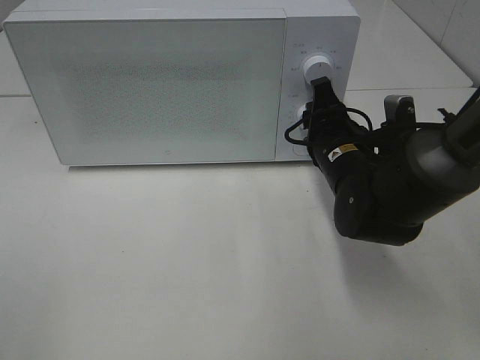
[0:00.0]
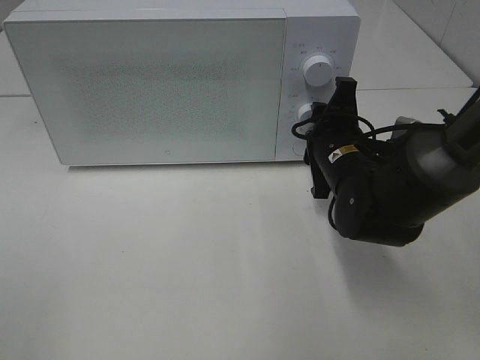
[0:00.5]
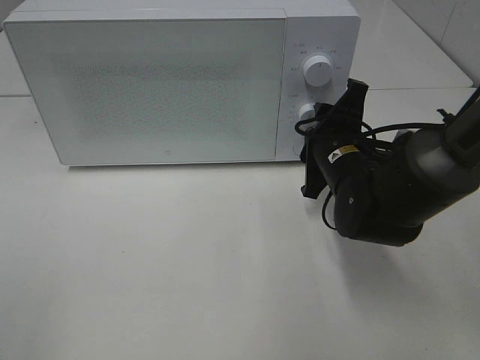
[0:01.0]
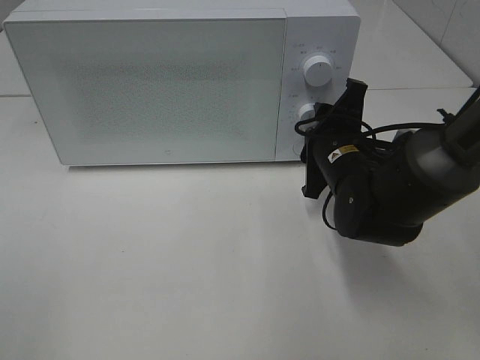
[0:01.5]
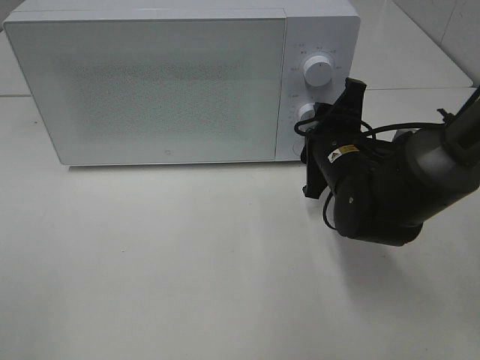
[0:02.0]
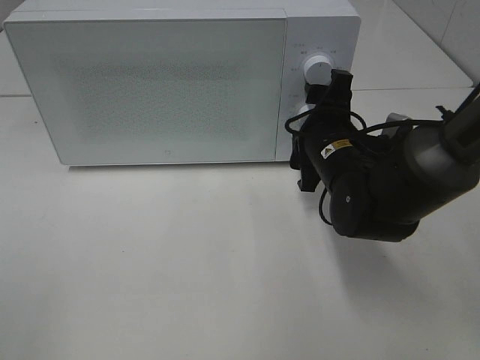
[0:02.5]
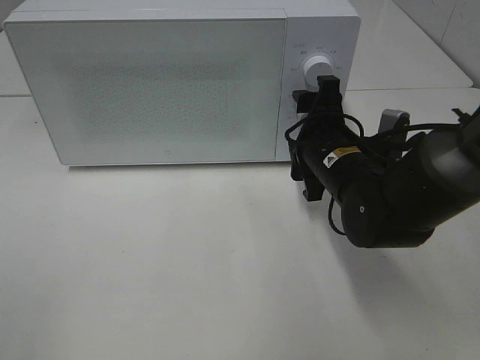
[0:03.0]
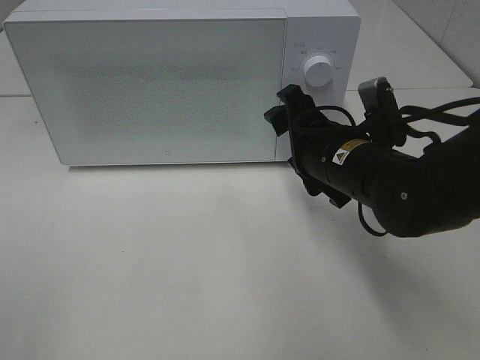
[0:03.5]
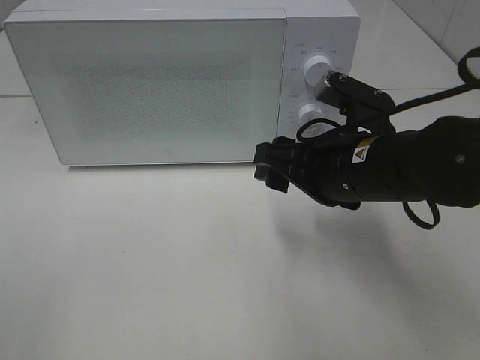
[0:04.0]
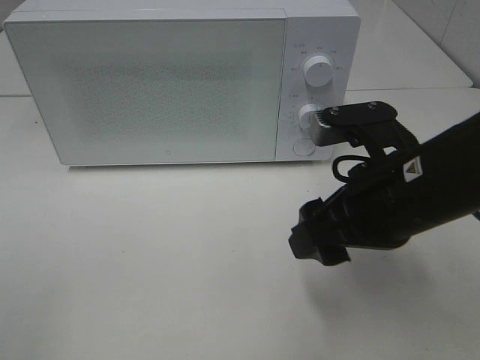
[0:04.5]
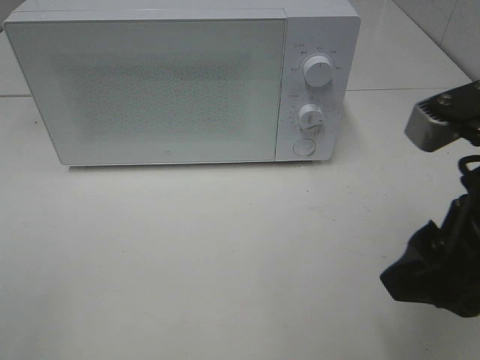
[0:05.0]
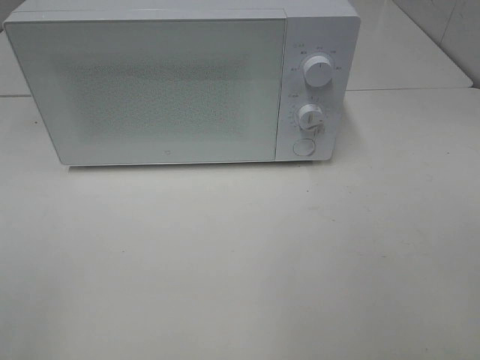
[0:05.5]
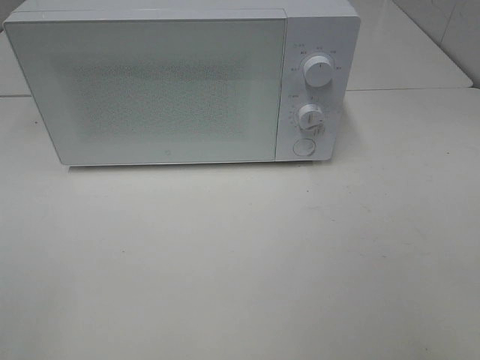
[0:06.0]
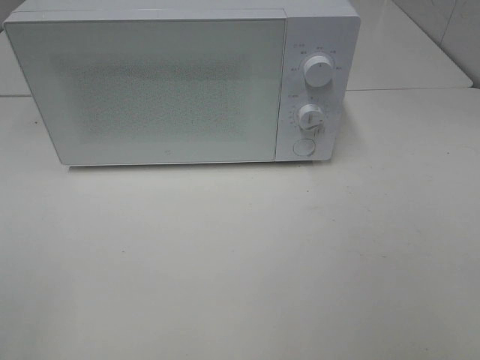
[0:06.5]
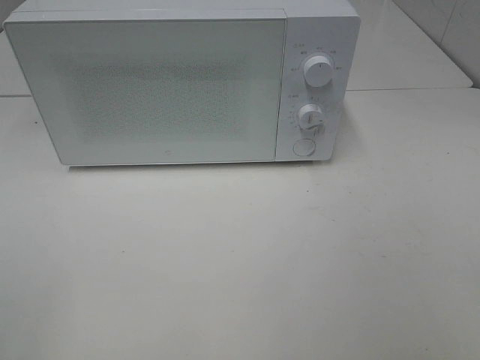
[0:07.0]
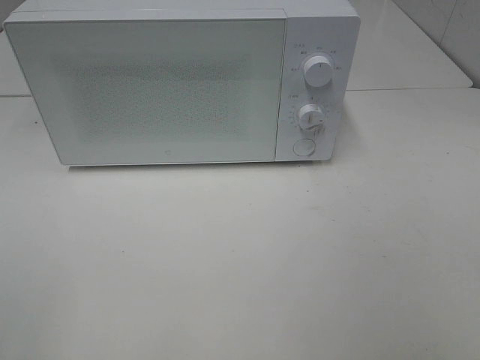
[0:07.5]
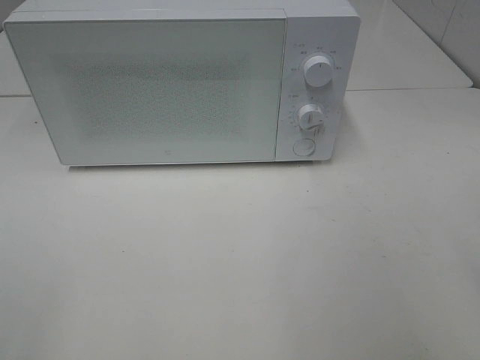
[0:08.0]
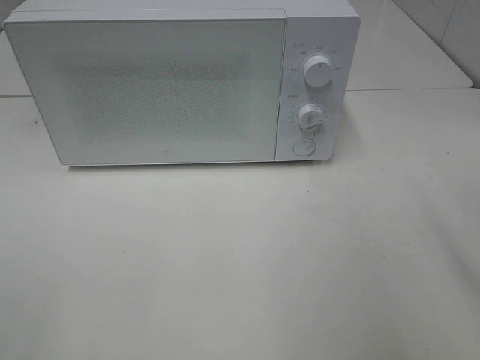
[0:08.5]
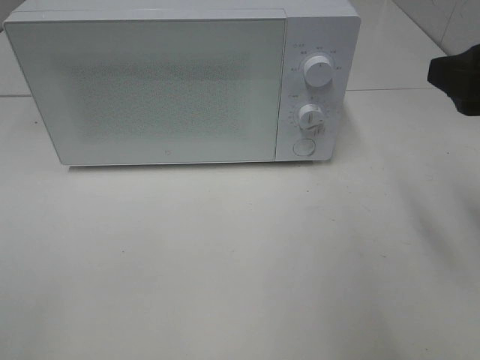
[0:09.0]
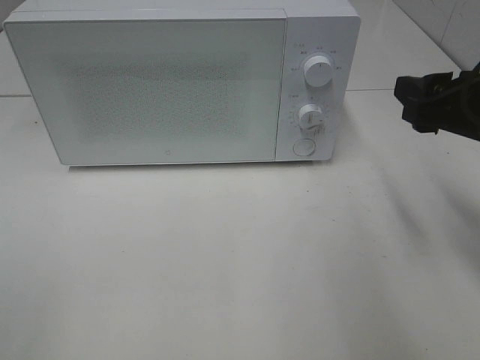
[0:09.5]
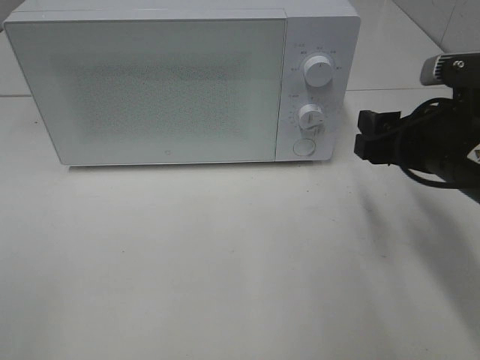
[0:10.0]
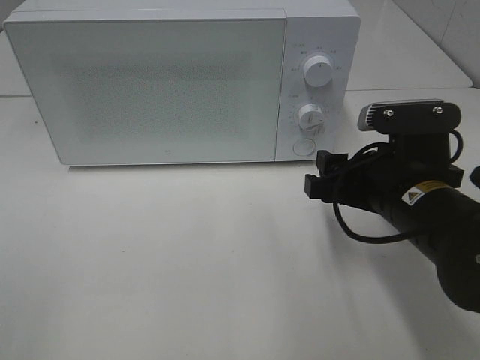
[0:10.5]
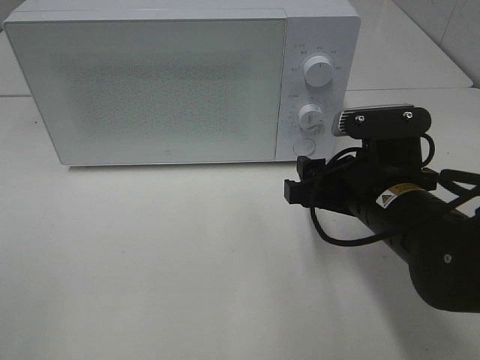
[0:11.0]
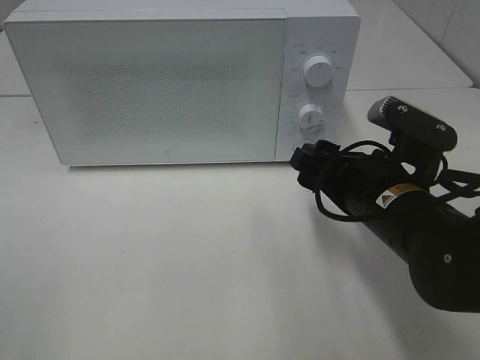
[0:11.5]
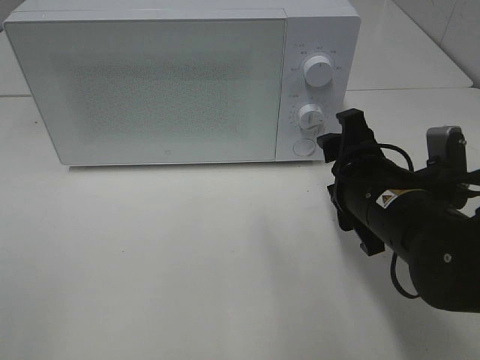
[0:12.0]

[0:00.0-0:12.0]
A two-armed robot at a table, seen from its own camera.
Task of the whole recording: Heat Sandwich.
Step, 0:00.0 to 0:03.0: Right hand: twist timer button.
0:02.0 to 0:04.0: The right gripper travels backward and upward by roughly 10 cm.
0:04.0 to 0:06.0: The right gripper travels backward, to the right and upward by some 30 cm.
0:08.0 to 0:10.0: The right gripper goes approximately 20 cm forward, downward and to the left.
0:10.0 to 0:12.0: The right gripper moves to the left, some 5 cm.

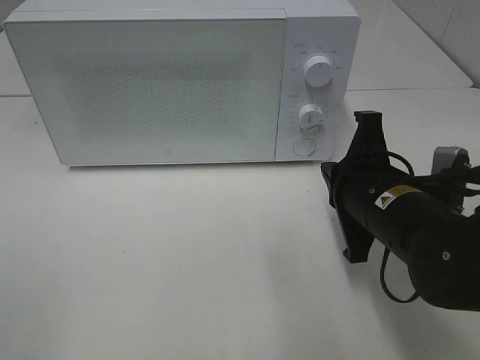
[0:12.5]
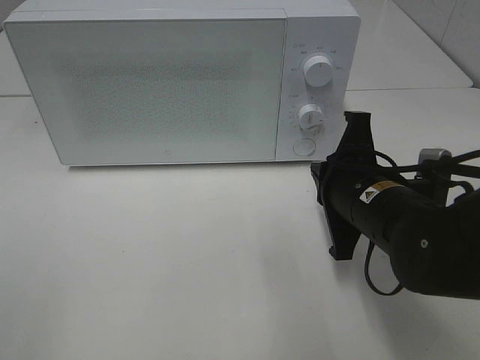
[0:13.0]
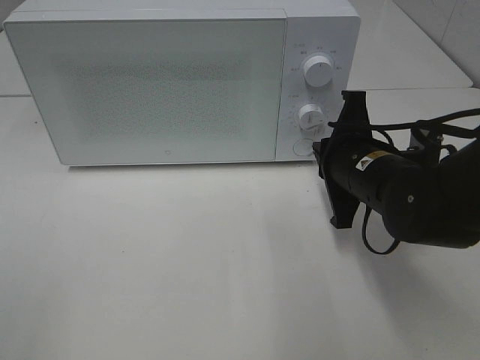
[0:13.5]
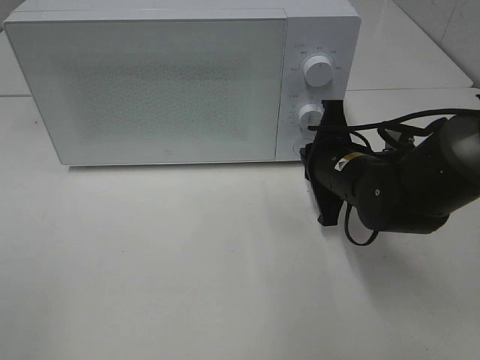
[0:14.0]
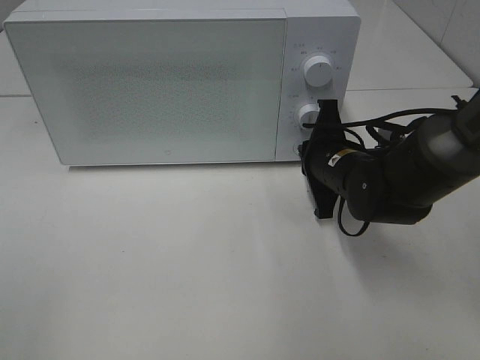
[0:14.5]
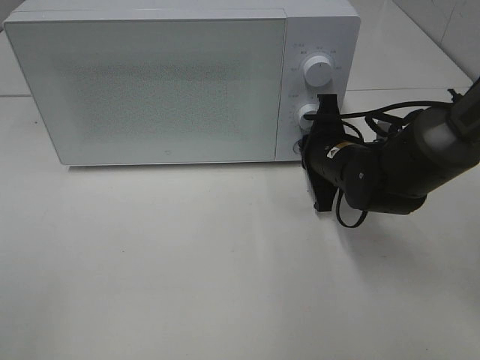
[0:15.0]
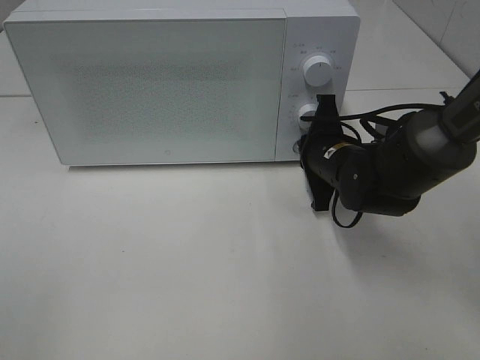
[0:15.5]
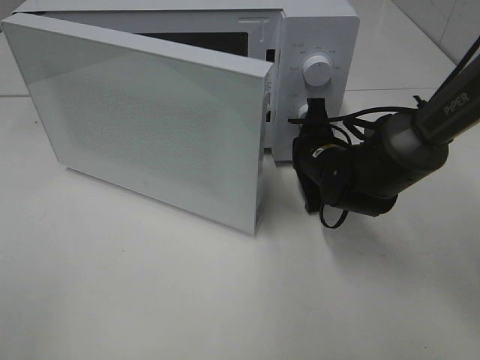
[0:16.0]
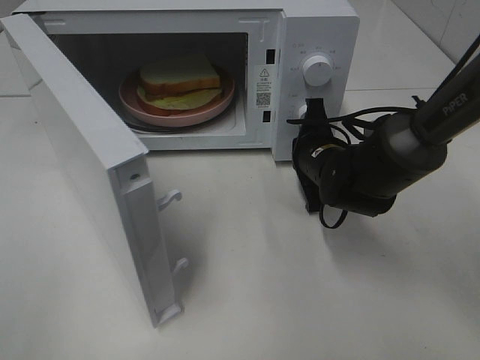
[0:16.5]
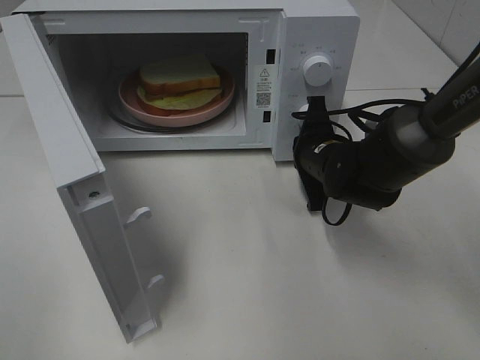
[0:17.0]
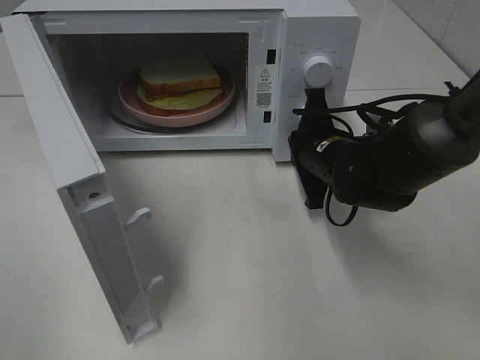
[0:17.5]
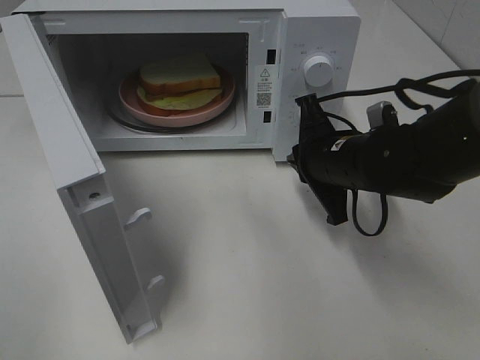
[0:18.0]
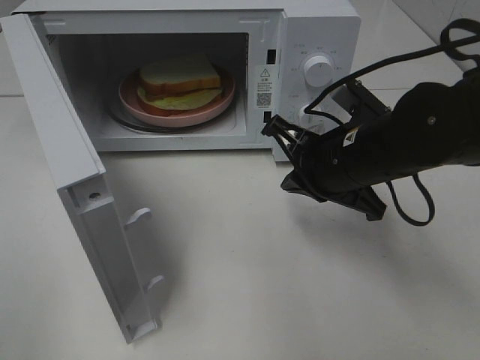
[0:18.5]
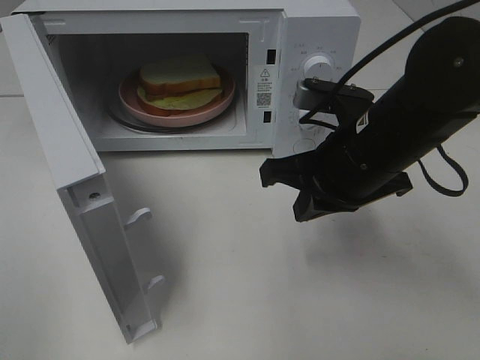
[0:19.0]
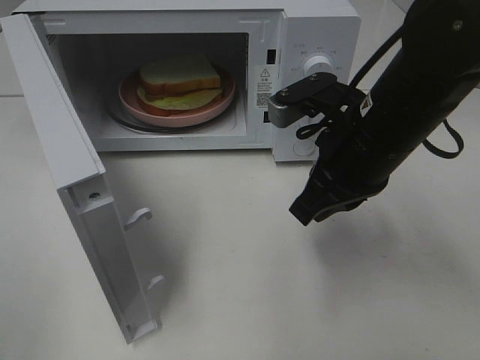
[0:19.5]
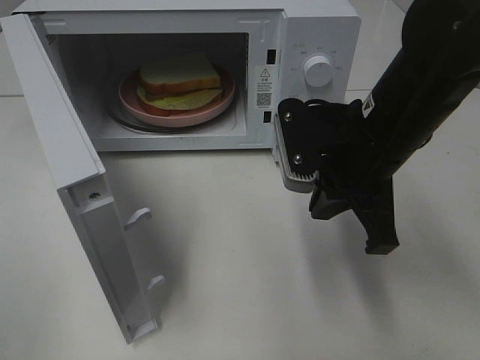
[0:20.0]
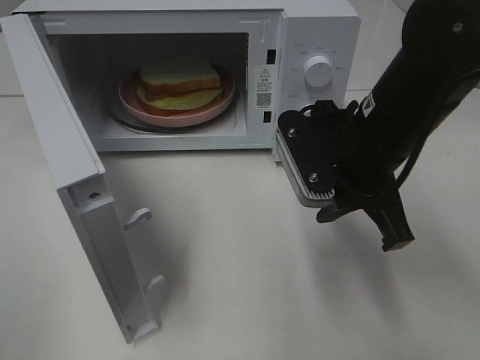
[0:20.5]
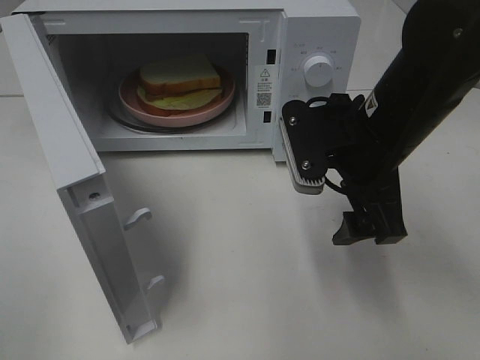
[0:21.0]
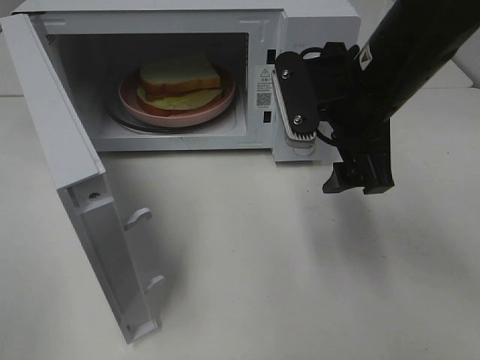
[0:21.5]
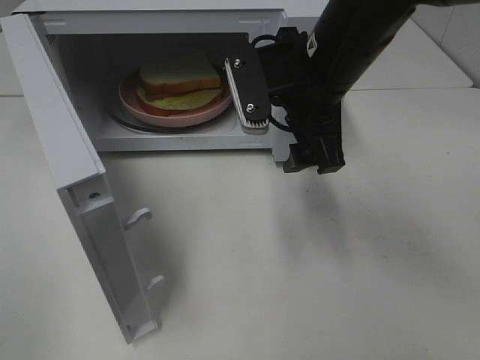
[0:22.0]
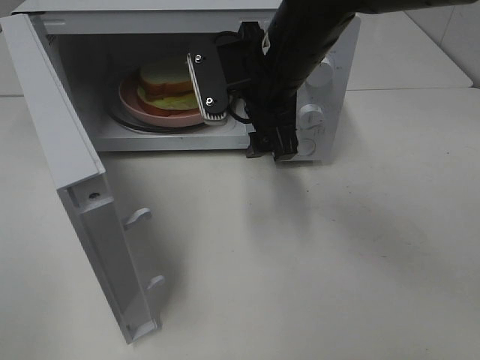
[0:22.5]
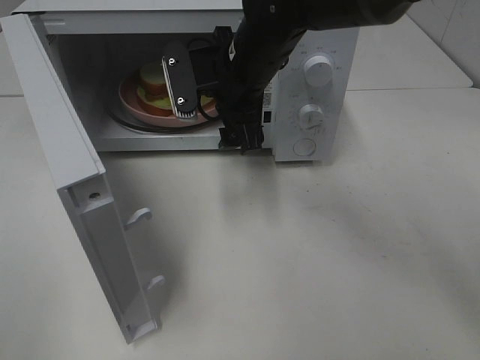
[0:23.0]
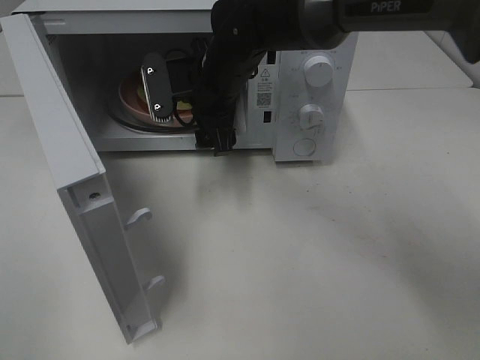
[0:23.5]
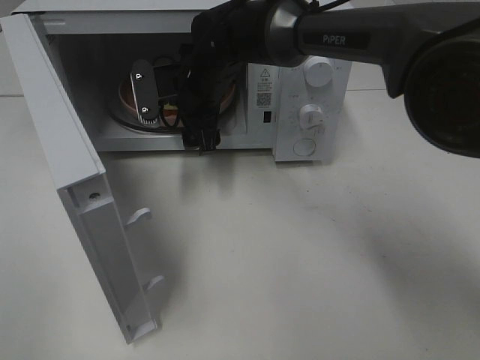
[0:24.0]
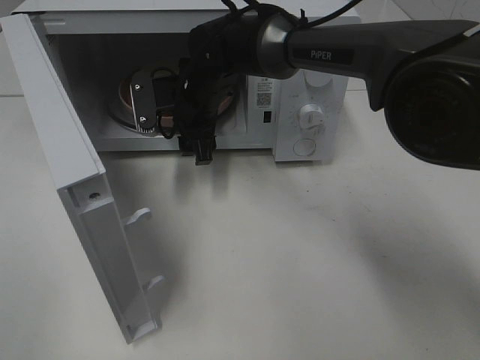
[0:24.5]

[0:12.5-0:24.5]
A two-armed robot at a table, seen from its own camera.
Task of the whole recording: Heat Sandwich.
Step, 0:12.5 to 0:17.5: Right hand: press the switch.
0:12.5 to 0:14.5: The right gripper is displaced forward by approximately 10 cm.
0:16.5 to 0:18.5: The right gripper shifts roughly 10 cm backward and upward.
0:18.5 to 0:20.5: The right gripper ends up roughly 5 cm from where it was.
0:20.5 to 0:22.5: The right gripper is displaced to the left and forward by some 10 cm, and opens.
0:22.5 to 0:24.5: The right gripper goes approximately 15 cm forward, downward and to the left.

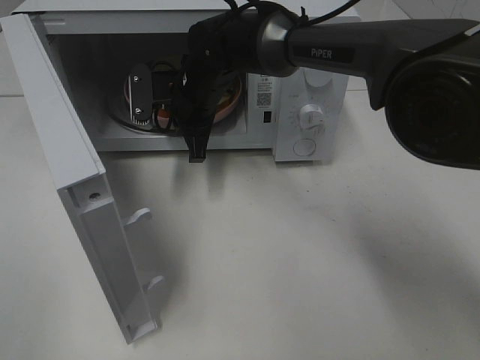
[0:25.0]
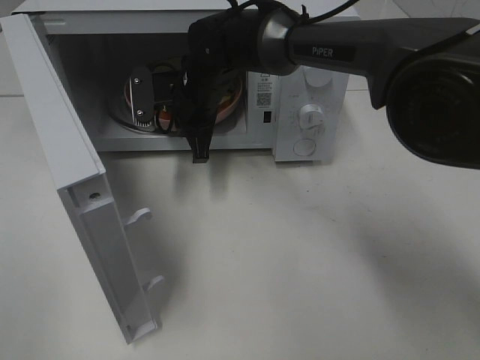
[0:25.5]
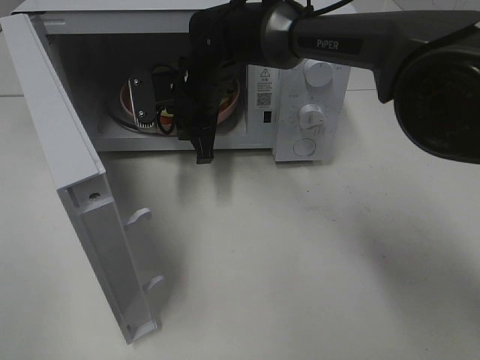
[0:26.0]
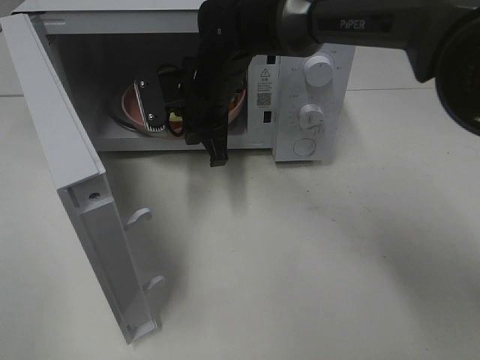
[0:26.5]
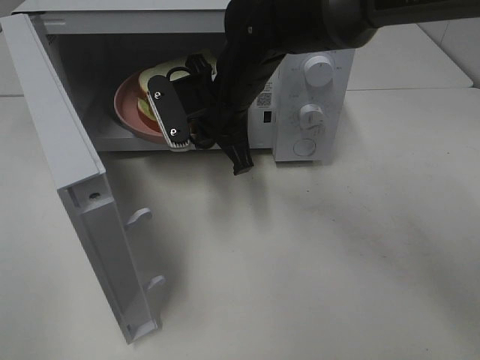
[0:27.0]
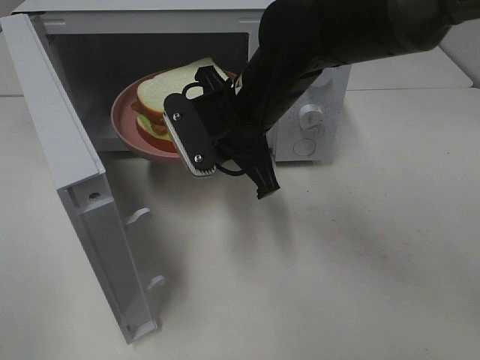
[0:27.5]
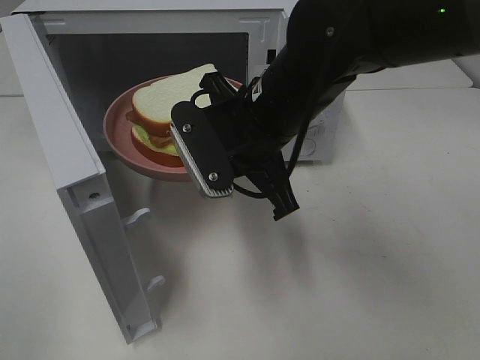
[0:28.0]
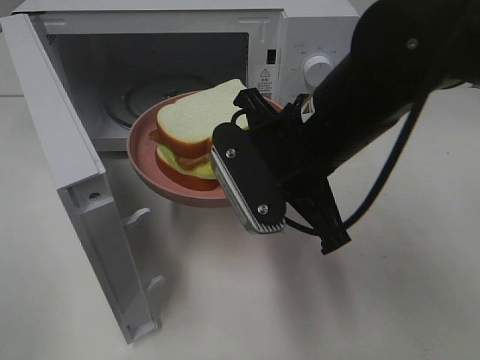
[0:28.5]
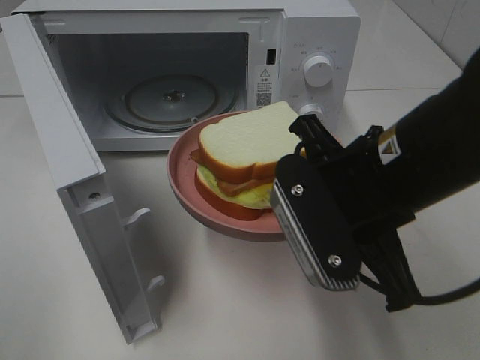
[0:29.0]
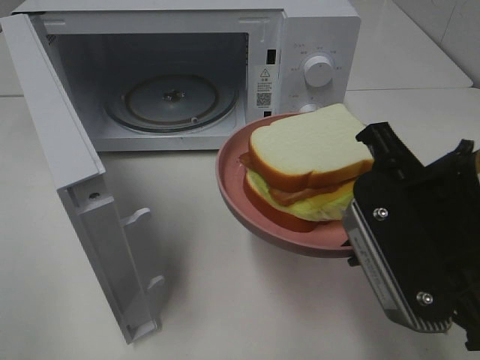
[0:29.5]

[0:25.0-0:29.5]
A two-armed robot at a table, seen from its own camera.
Task of the whole recording: Heat Sandwich.
0:25.0 to 0:27.0: The right gripper heads backward, covering about 5 cm.
0:27.0 to 0:29.5: The right gripper is displaced backward and to the right by roughly 25 cm.
